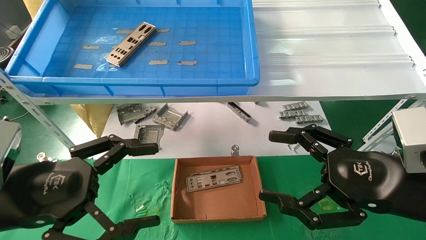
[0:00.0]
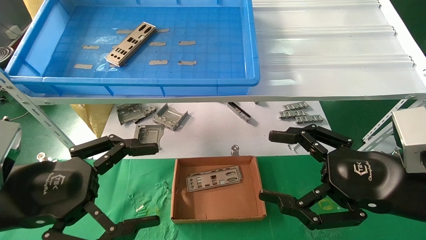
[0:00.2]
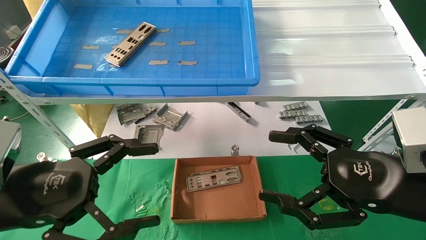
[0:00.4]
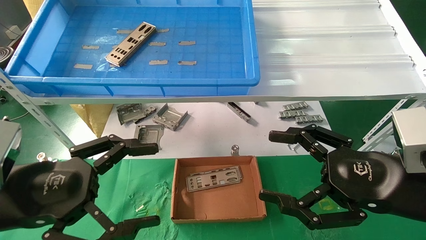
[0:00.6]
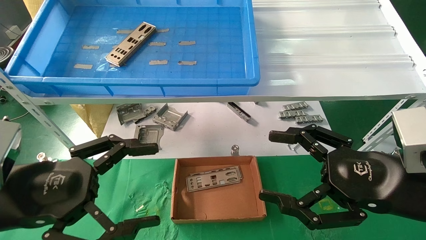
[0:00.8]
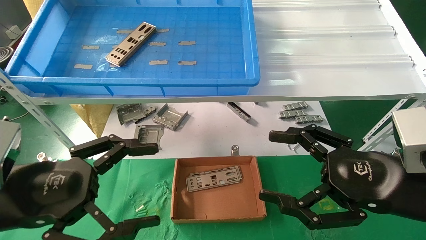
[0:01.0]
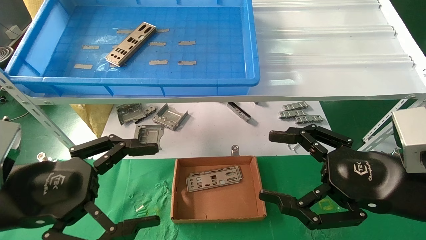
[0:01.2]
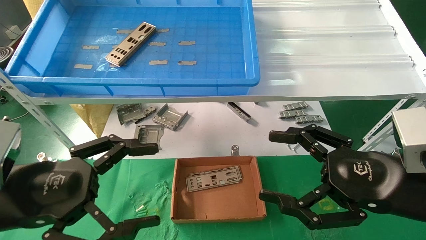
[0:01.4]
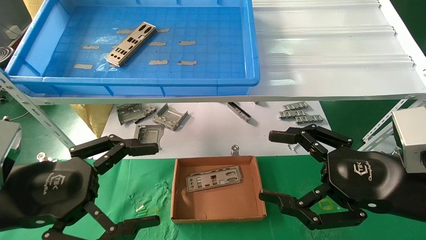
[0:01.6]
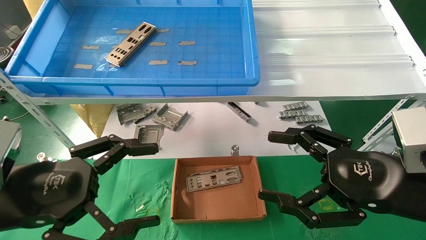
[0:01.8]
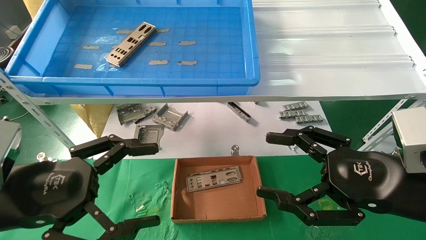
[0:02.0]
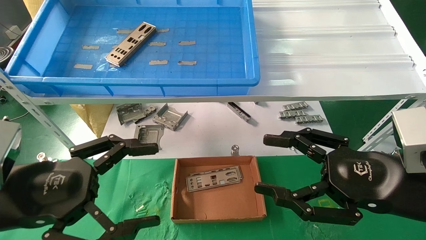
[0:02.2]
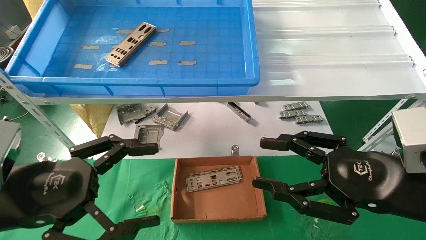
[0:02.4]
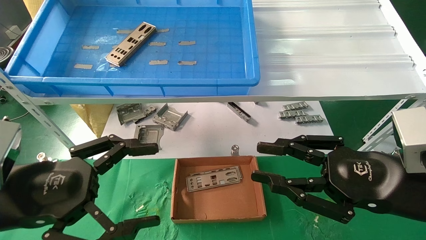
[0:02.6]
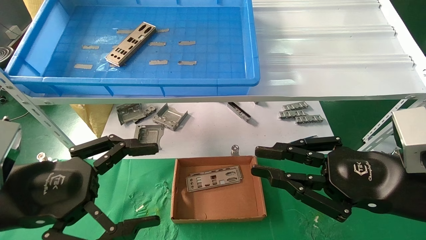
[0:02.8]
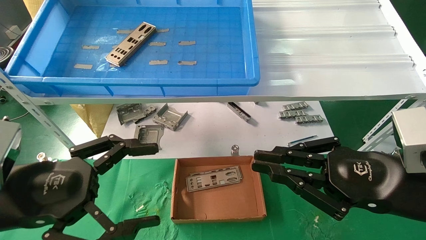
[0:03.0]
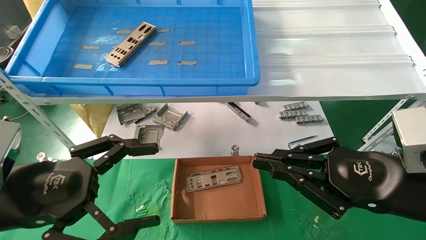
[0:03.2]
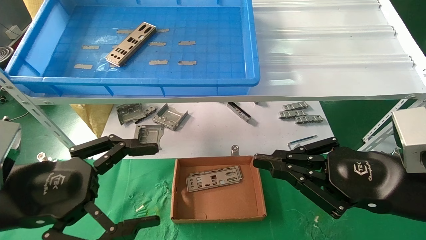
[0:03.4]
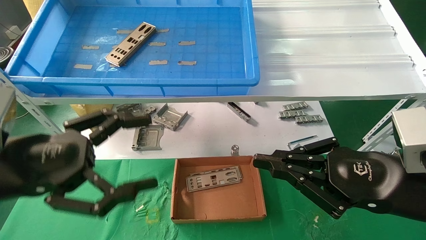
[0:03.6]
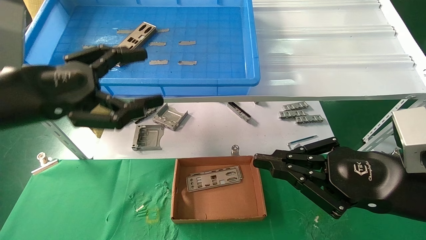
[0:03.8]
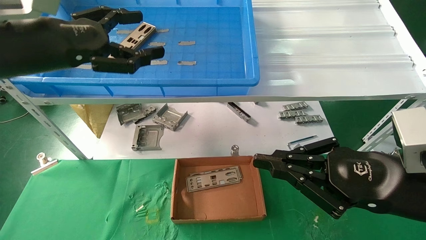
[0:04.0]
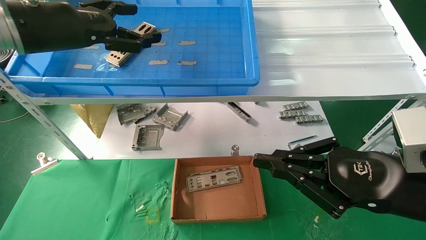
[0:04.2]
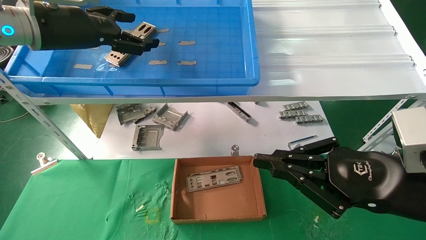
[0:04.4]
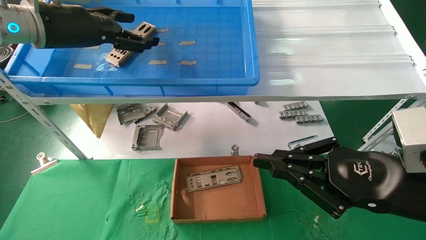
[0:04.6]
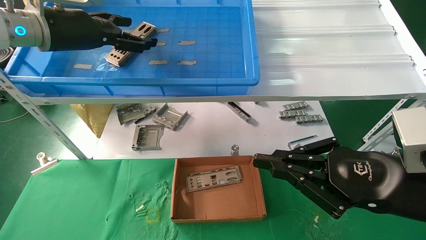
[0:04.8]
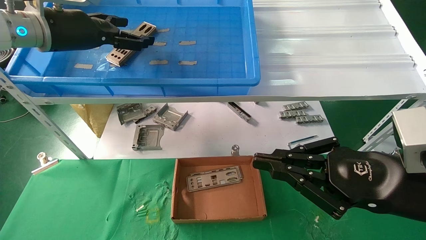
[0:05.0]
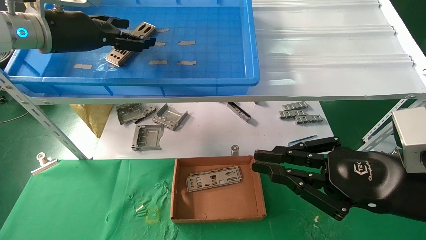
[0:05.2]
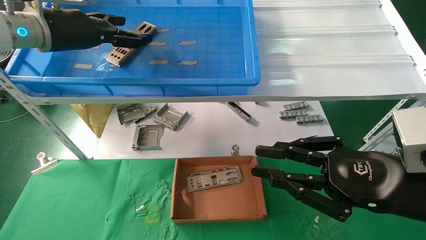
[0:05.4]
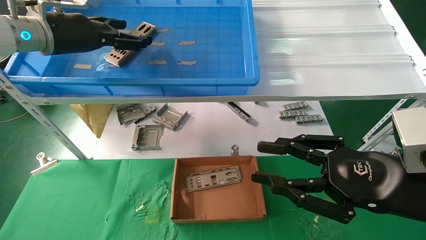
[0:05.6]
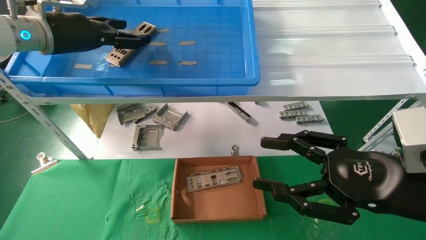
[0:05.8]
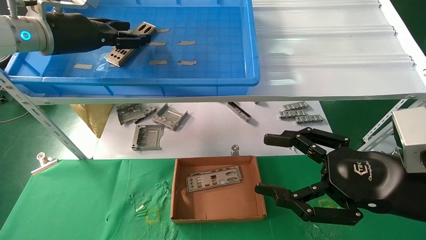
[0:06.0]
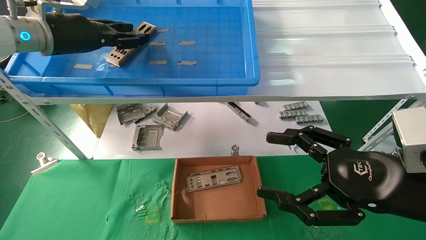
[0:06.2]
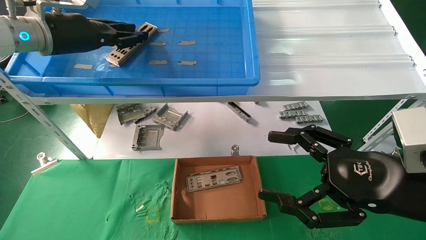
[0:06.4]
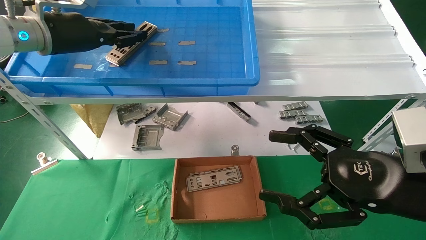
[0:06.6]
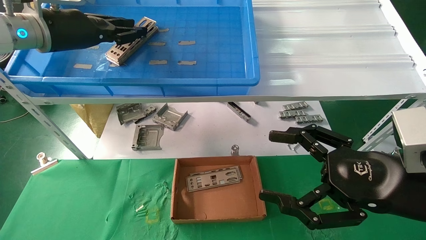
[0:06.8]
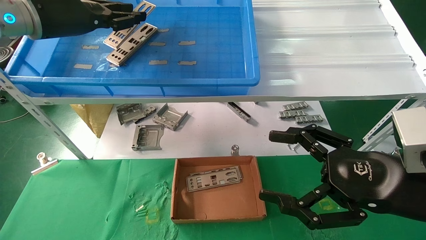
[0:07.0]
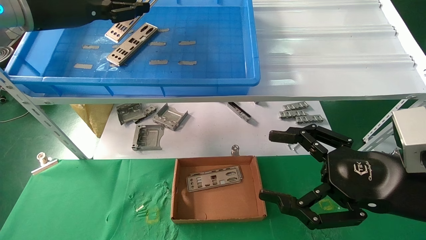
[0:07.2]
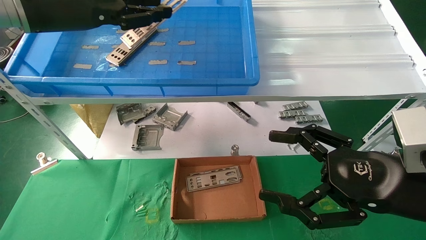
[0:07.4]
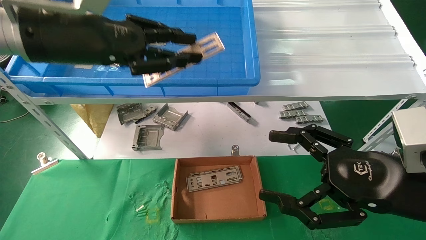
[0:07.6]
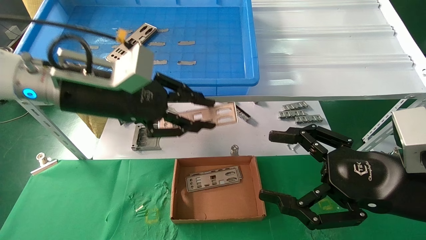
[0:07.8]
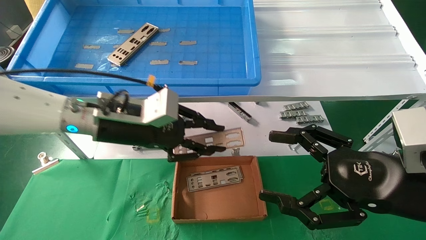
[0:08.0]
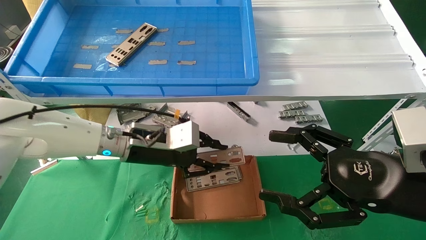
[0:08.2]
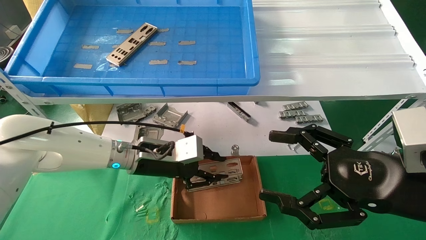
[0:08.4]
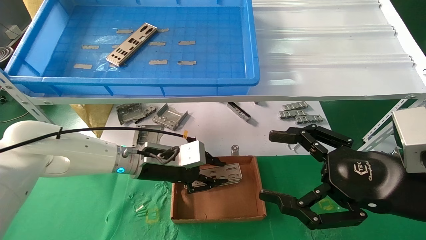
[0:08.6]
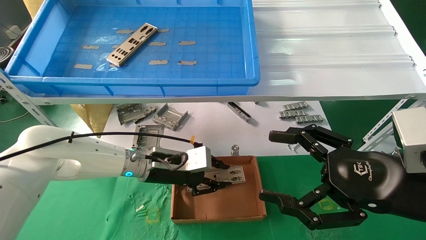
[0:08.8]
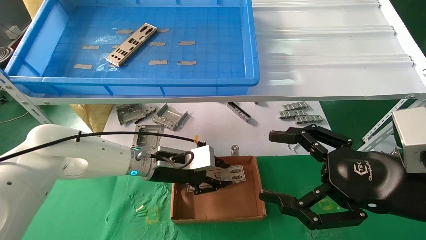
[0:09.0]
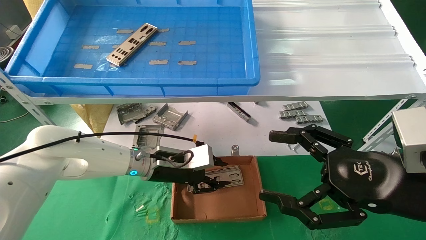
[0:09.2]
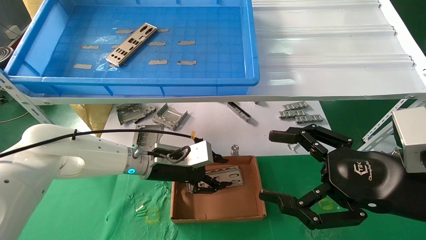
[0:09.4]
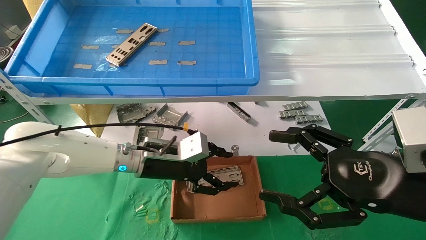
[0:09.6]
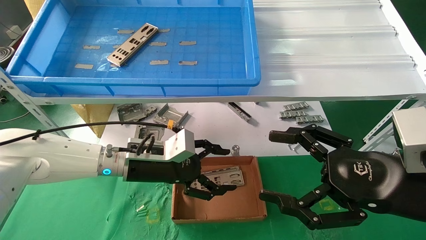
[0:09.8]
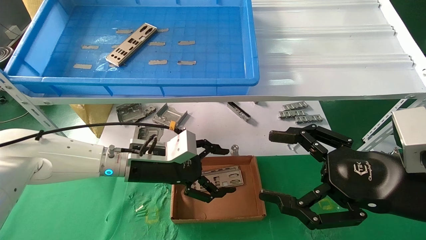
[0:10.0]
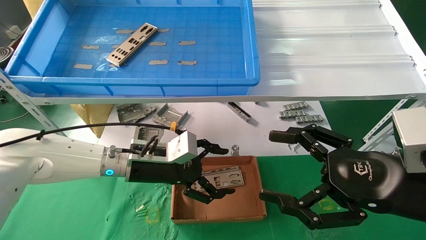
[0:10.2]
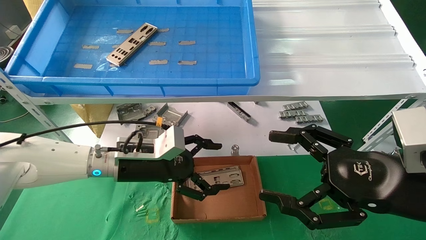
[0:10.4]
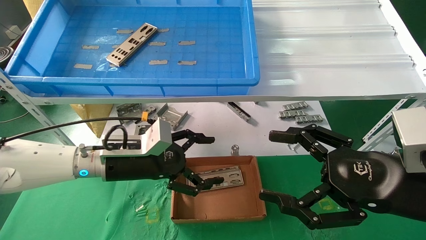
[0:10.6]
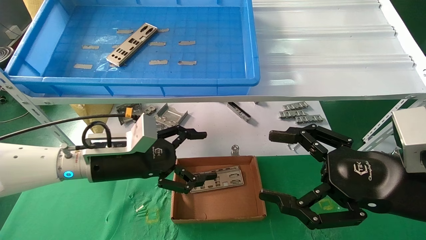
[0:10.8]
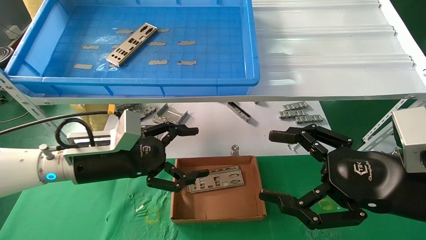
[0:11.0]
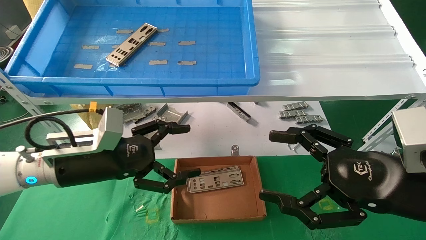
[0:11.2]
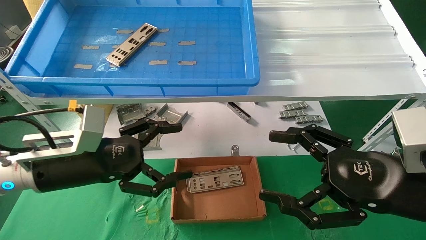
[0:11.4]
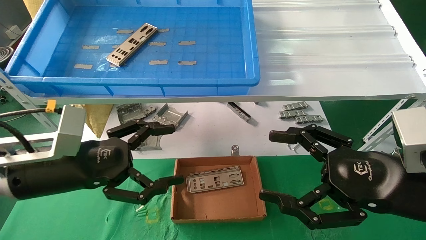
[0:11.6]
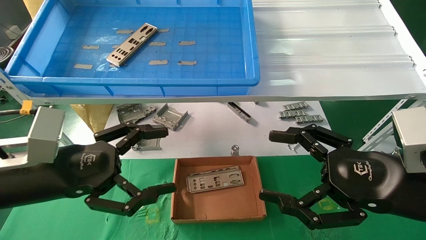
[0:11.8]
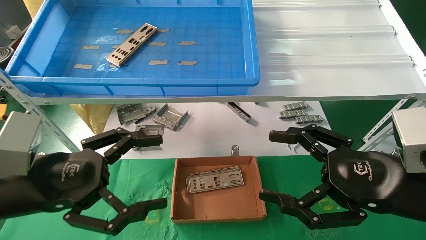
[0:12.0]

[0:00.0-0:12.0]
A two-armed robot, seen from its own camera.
Task of the whole recording: pick up the parts on the tray and put them in the cardboard box.
Step, 0:04.0 to 0:07.0: Pick up the IO bracket from the container box.
Step, 0:07.2 to 0:09.2: Place the IO bracket into the ingredient slot.
0:00.0 to 0:01.6: The two grippers keep their place.
0:01.6 to 0:03.0: The right gripper closes.
0:03.0 to 0:04.4: The left gripper heads upward and forward, covering approximately 25 cm.
0:04.4 to 0:06.0: The right gripper opens up.
0:06.0 to 0:07.6: The left gripper shifts about 10 cm backward and to the right, and closes up. Meanwhile the right gripper opens up.
0:07.6 to 0:09.0: The left gripper is displaced downward and to the right by some 25 cm.
0:09.0 to 0:10.4: The left gripper ends up some 5 cm from where it was, and opens.
0:10.4 to 0:12.0: The left gripper travels backward and to the left by roughly 20 cm.

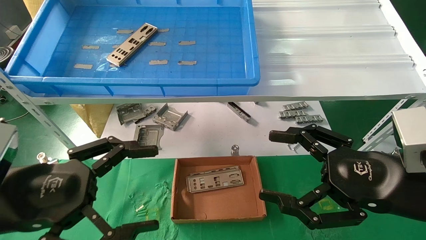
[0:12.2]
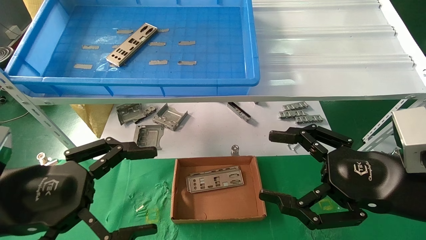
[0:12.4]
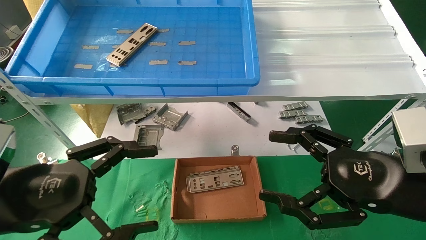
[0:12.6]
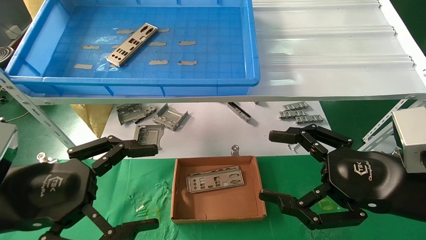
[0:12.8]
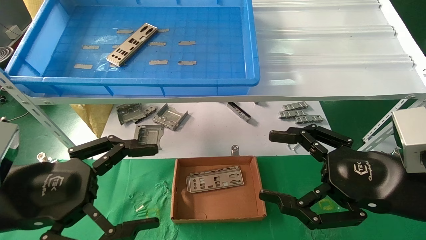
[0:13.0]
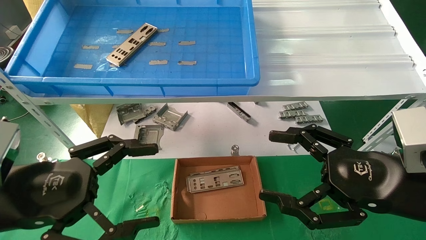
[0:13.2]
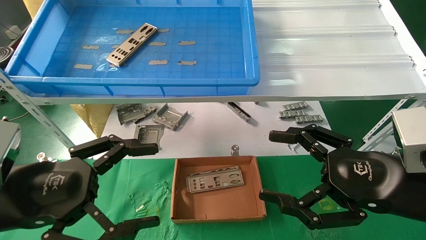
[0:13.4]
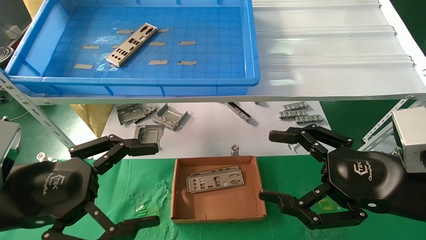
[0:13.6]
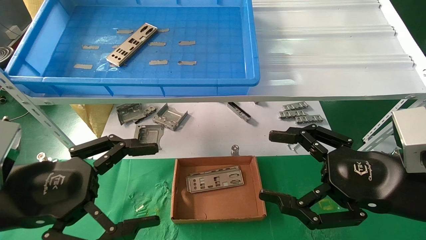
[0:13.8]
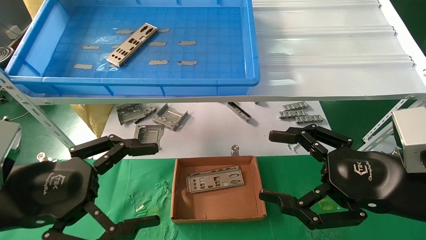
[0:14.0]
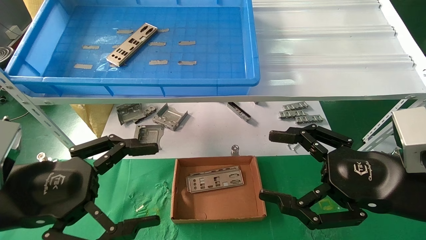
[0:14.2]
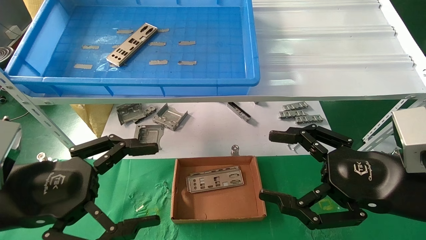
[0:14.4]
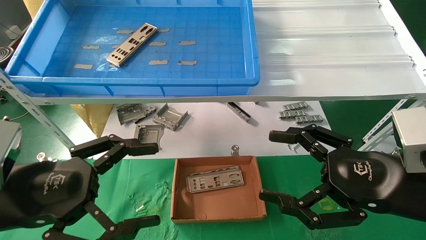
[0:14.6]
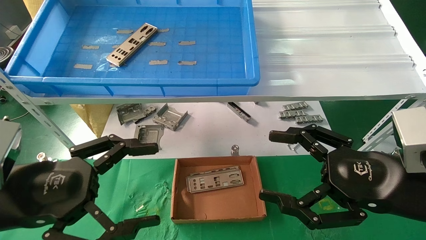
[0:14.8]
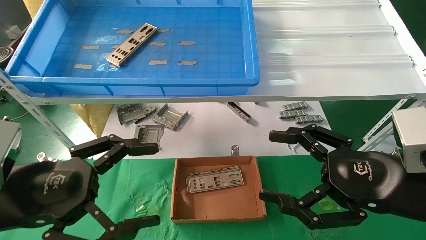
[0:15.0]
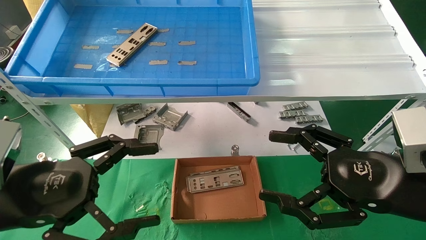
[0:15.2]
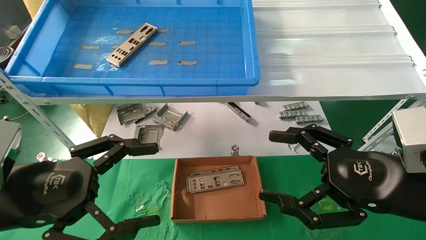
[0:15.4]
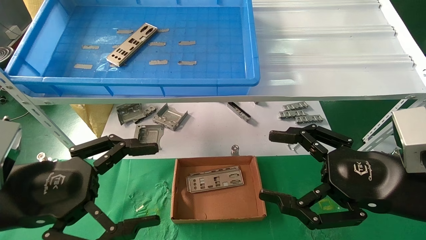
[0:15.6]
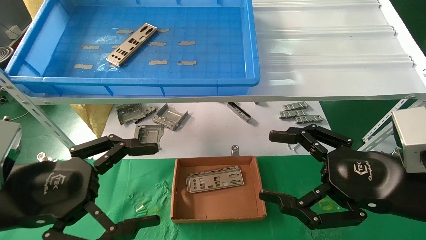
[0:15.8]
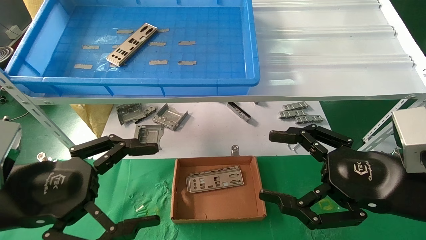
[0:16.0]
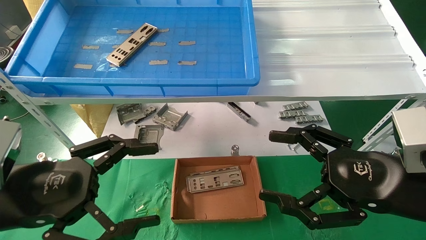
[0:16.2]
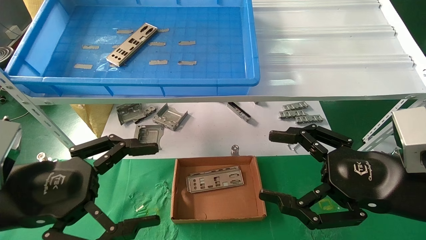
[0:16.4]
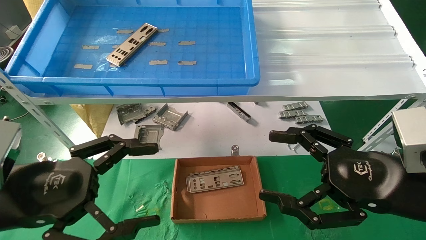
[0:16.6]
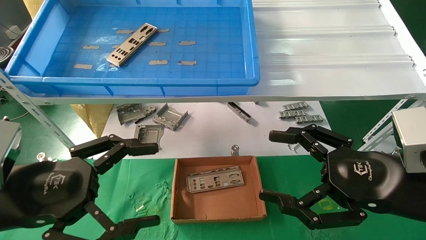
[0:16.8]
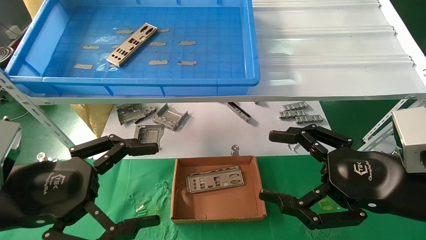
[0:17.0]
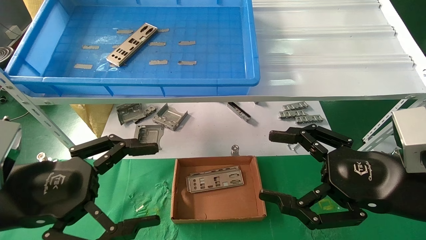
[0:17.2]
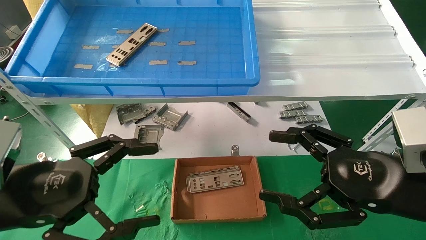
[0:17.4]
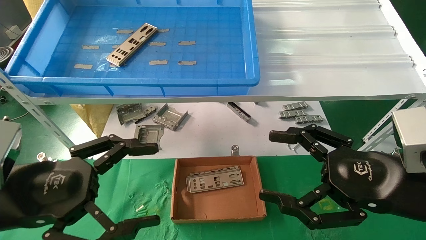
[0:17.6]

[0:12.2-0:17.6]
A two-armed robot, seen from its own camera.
Task of the whole recording: pick up the parts on the tray and put them in the cardboard box.
0:12.2 to 0:17.6: Neither gripper changes place.
